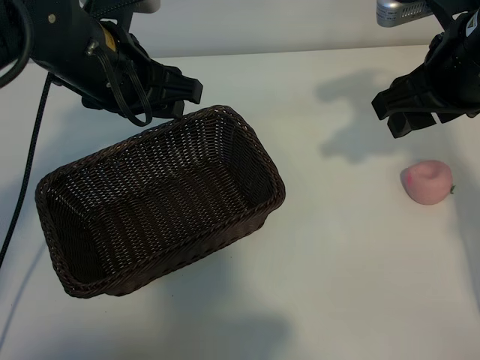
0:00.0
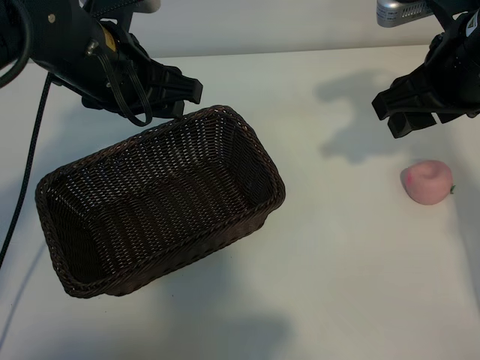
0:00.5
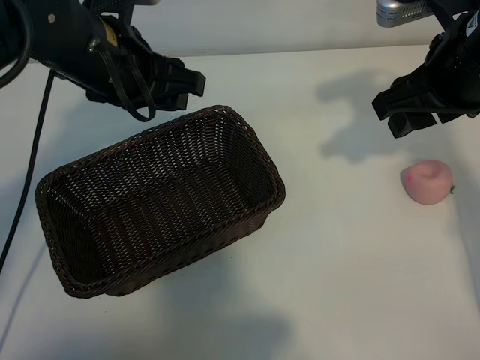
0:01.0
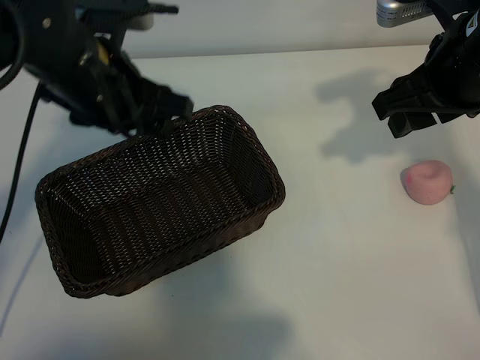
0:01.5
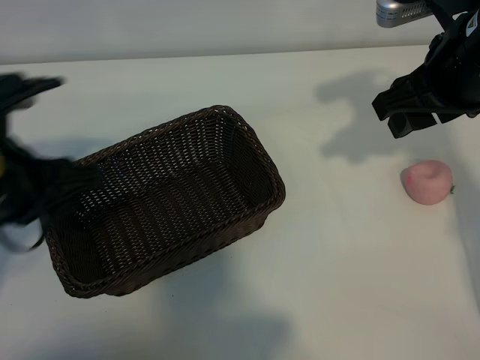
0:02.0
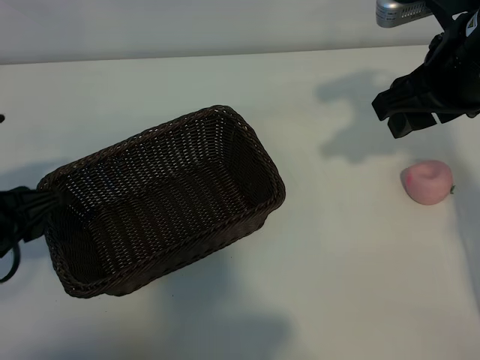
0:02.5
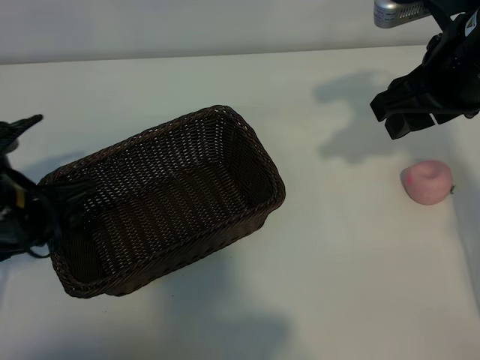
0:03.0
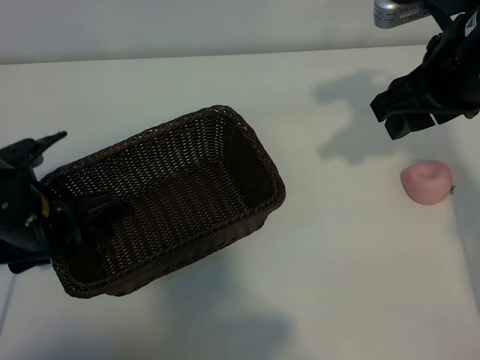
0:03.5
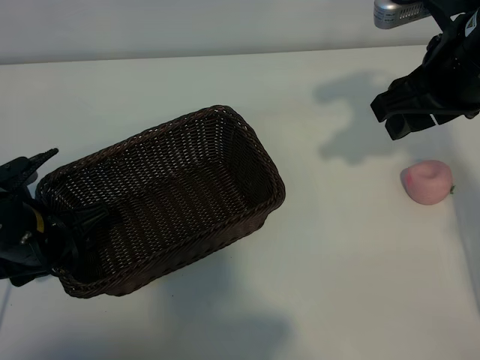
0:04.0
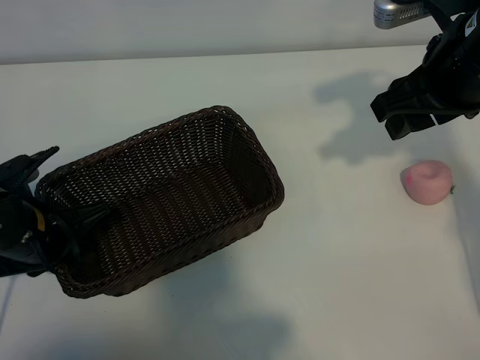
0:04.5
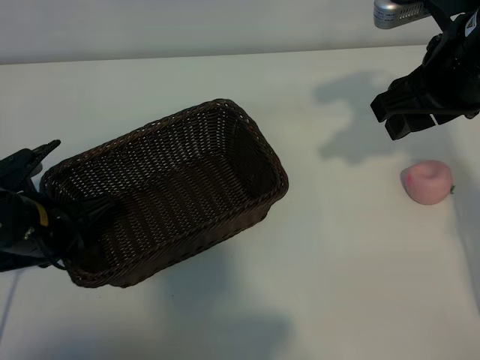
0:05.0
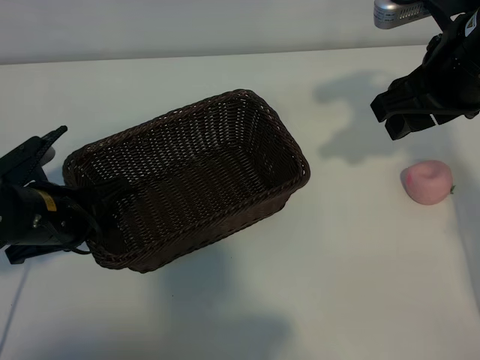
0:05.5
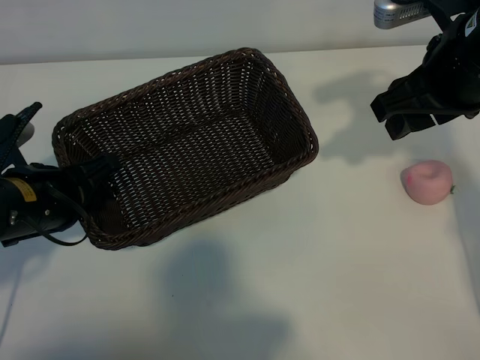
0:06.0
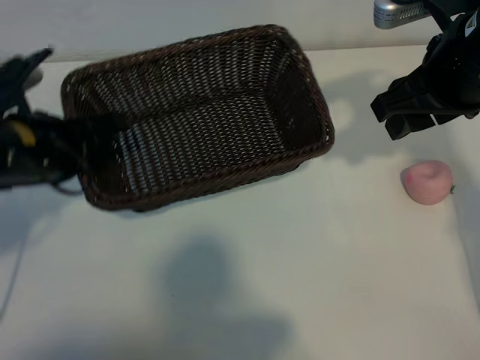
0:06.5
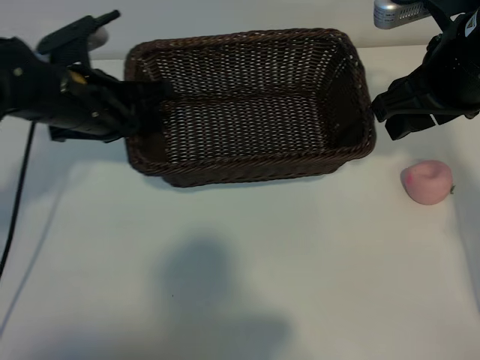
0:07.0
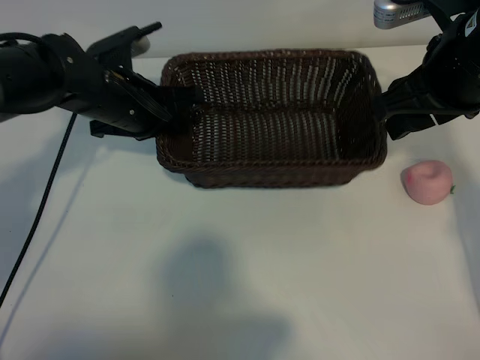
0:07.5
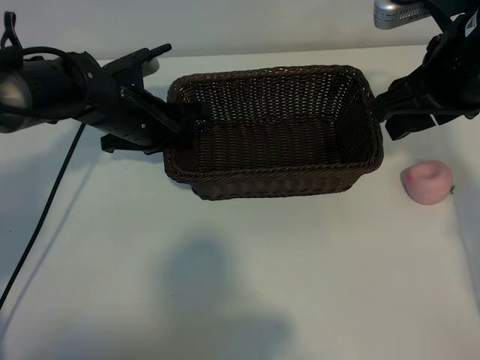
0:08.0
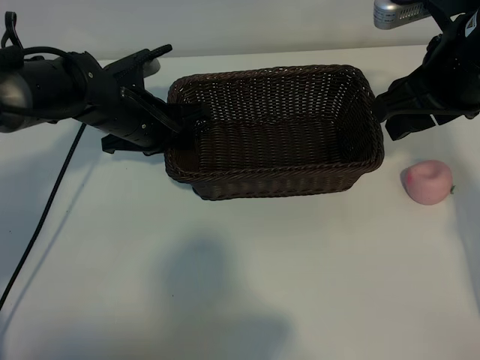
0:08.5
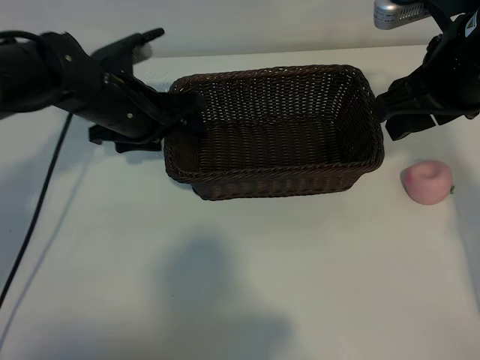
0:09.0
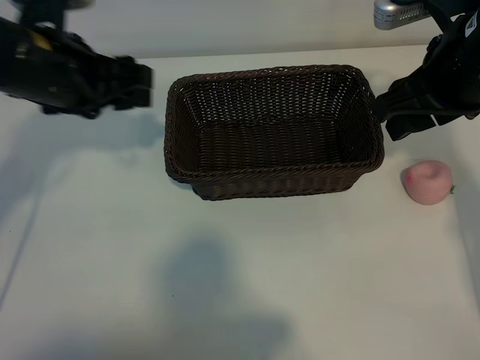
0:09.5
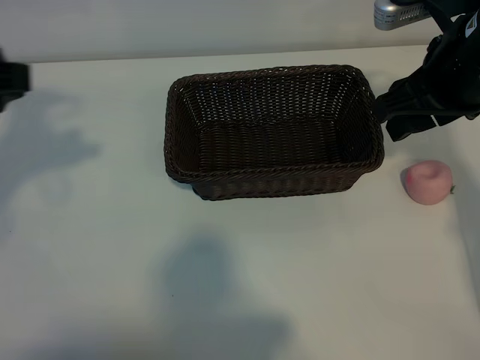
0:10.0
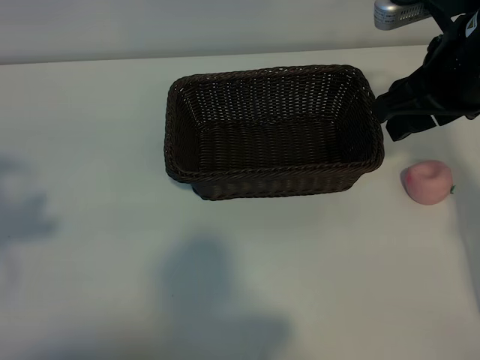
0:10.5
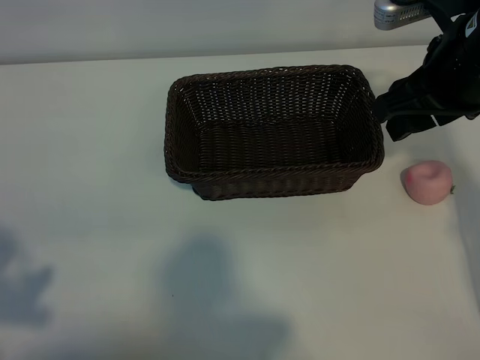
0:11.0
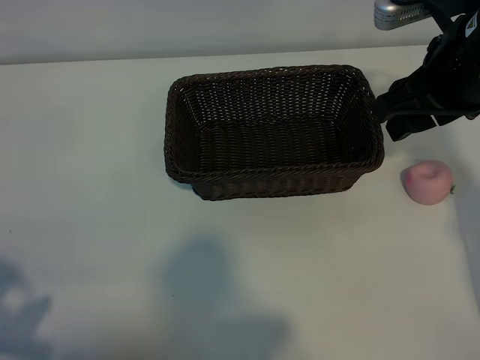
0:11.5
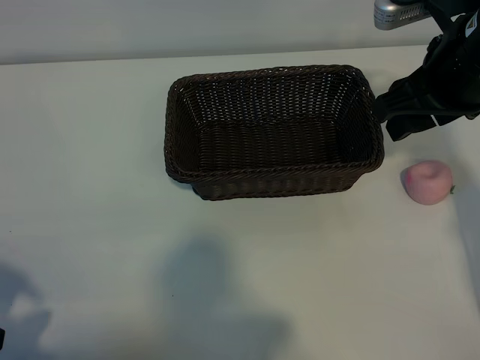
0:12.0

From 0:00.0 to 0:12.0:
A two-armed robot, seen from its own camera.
Task of the whole recording: pick up the peach and put it into the basket.
Step, from 0:01.0 to 0:04.5: Grasp the basket with left gripper.
Step, from 0:05.0 to 0:09.0: Place the basket in the center of view with left gripper.

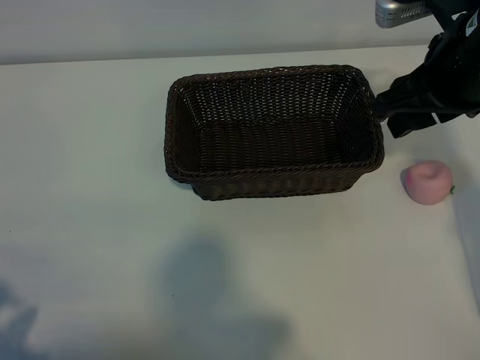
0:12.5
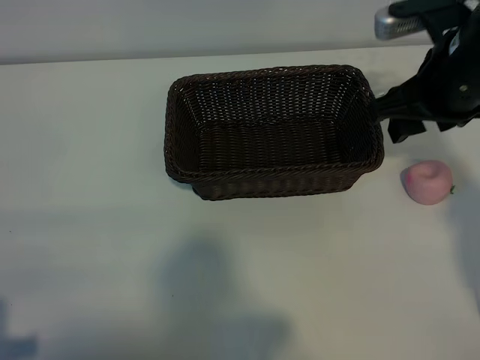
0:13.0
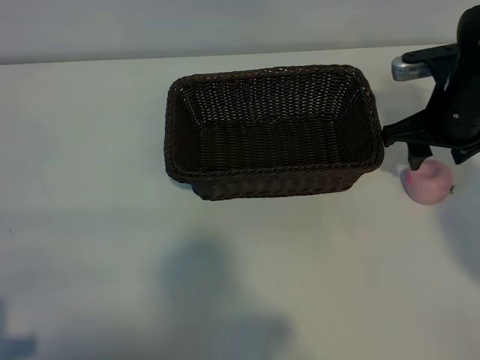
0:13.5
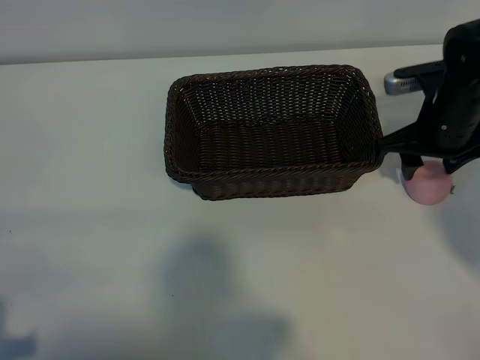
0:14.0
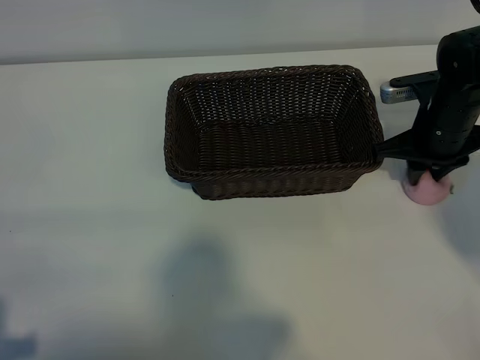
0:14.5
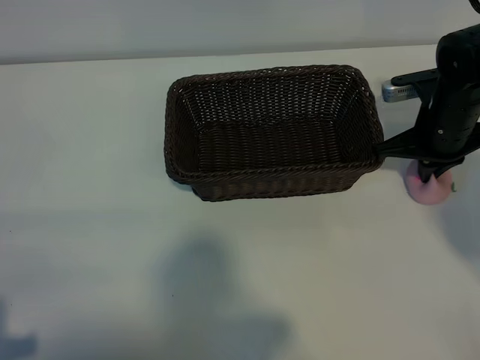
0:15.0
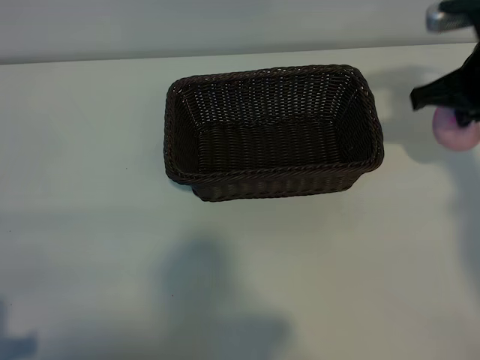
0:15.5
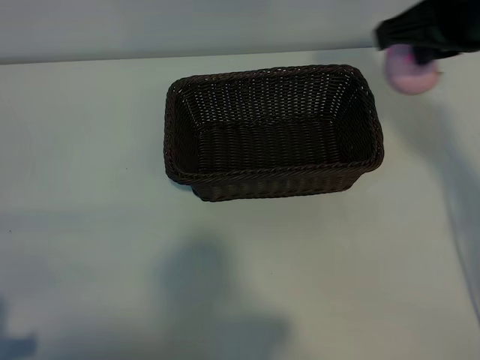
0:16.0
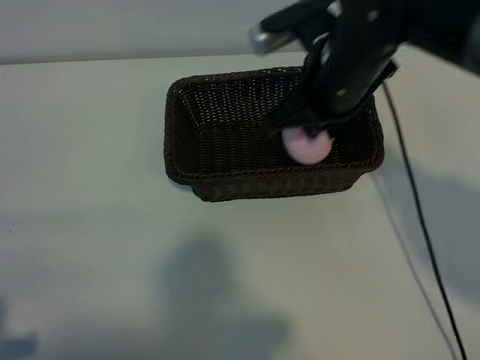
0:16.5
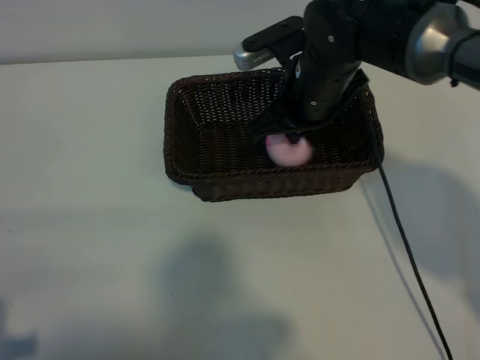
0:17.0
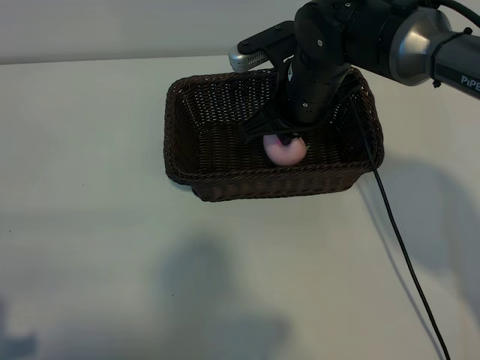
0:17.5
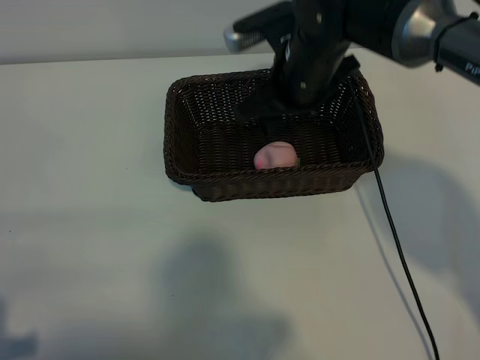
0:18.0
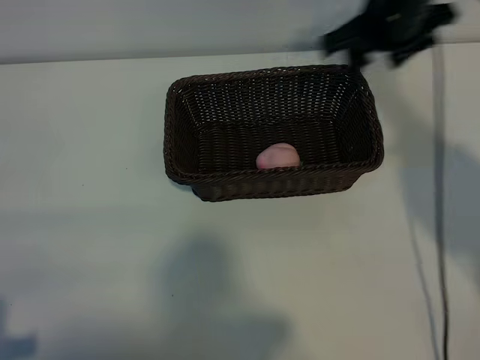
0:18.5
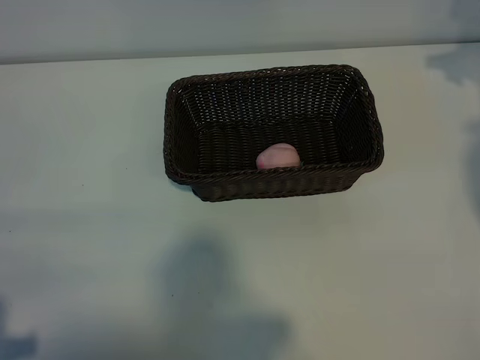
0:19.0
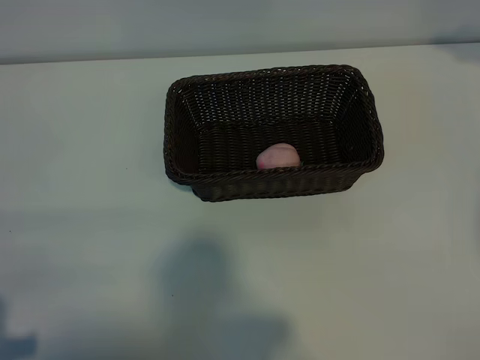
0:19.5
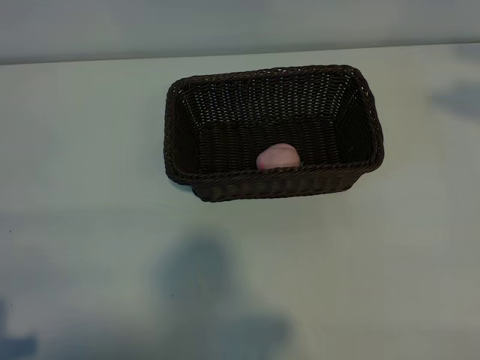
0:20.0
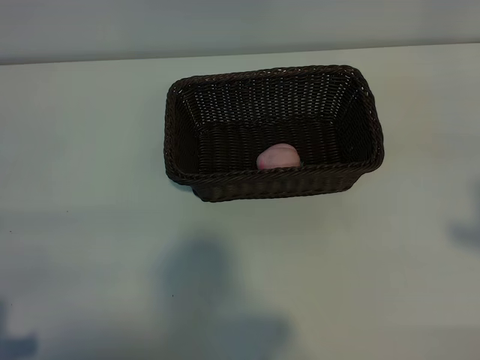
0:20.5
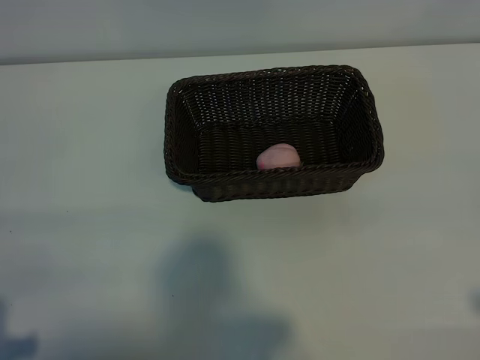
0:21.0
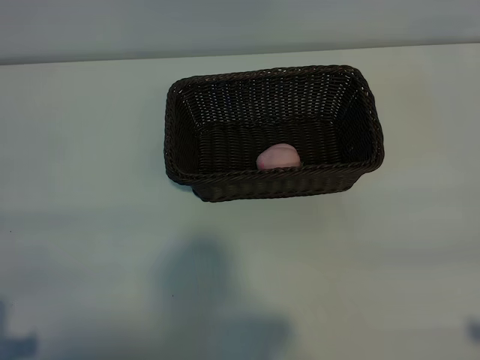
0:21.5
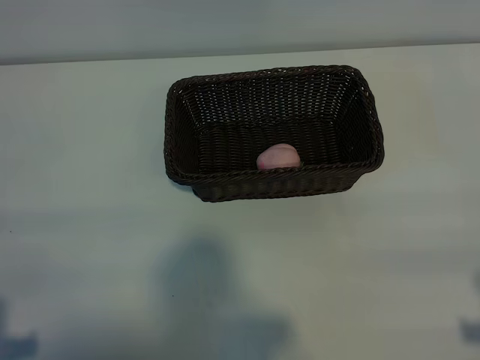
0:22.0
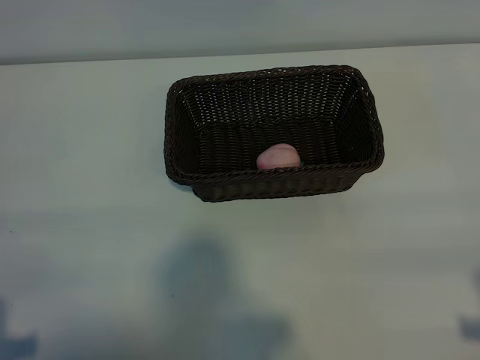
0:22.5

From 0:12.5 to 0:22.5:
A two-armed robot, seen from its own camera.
Task of the whole recording: pick up the peach and put it into the basket.
Step, from 0:12.5 to 0:14.5: Grasp the peach with right gripper.
Step, from 0:15.0 to 0:18.0: Place the peach in the basket with right gripper.

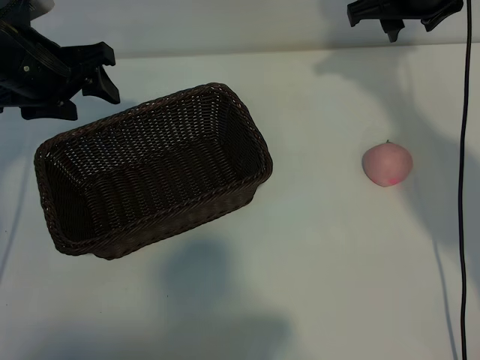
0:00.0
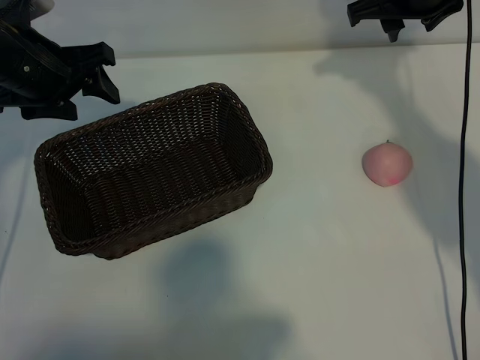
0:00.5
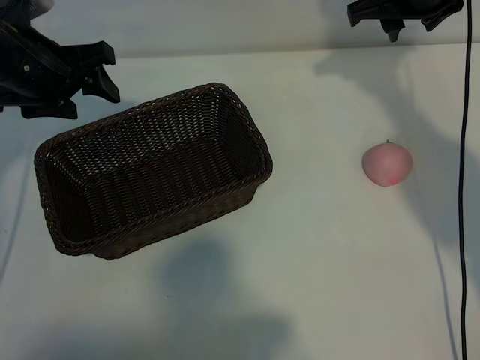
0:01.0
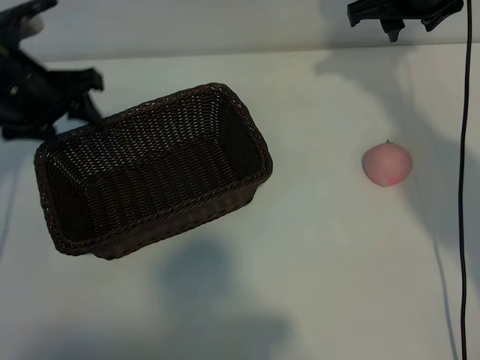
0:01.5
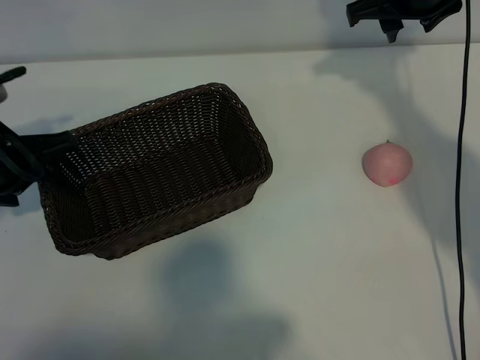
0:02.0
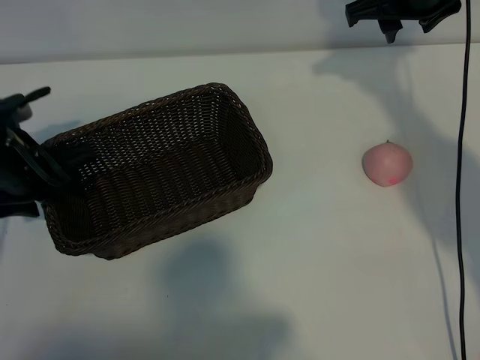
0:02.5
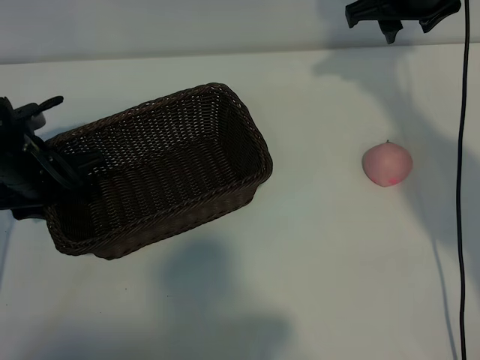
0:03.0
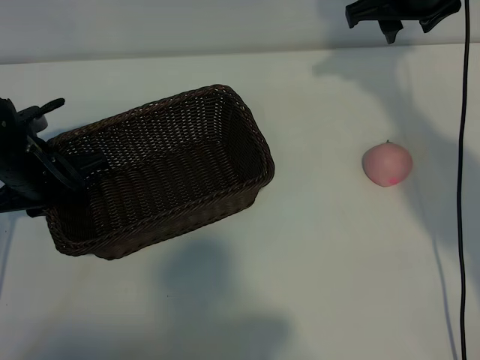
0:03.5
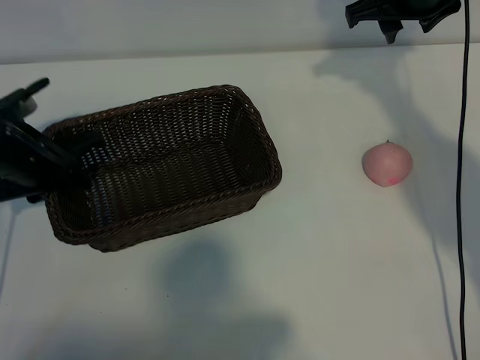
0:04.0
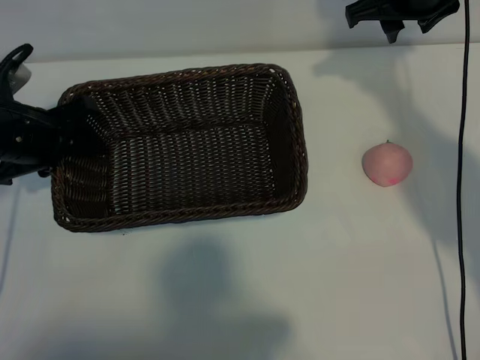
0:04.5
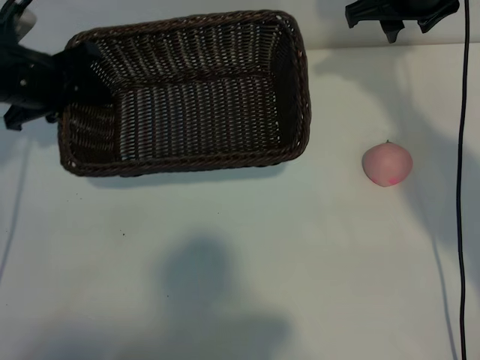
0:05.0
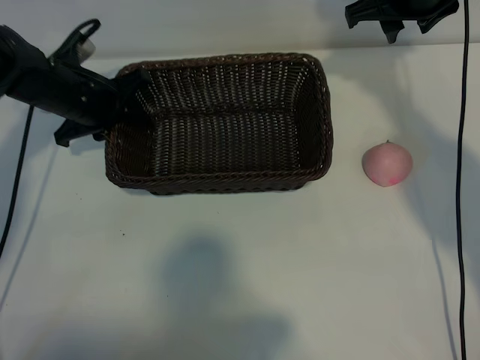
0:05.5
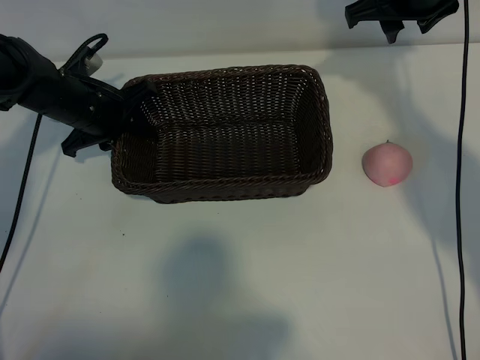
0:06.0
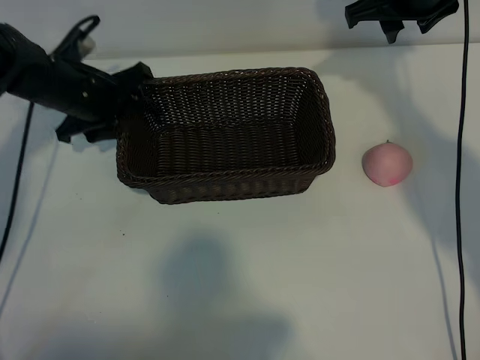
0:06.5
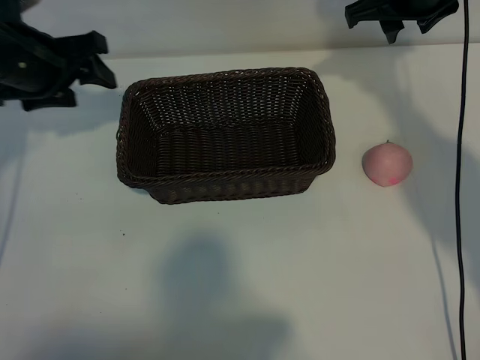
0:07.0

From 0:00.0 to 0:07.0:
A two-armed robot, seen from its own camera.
Task of the whole recording: pick up the peach and put it into the basket.
Step, from 0:01.0 to 0:03.0: Grasp the basket with left gripper.
Step, from 0:03.5 to 0:06.0: Place the basket in the center of view with left gripper.
